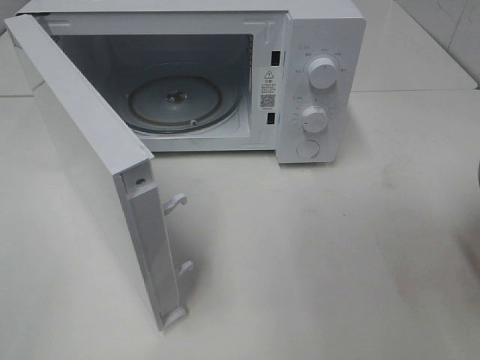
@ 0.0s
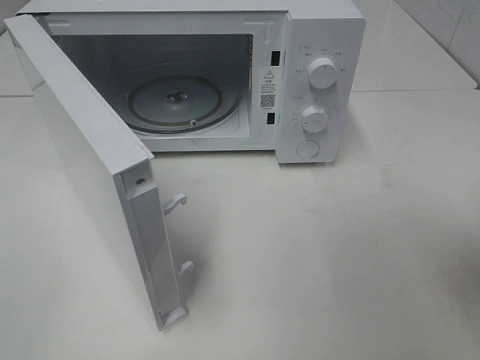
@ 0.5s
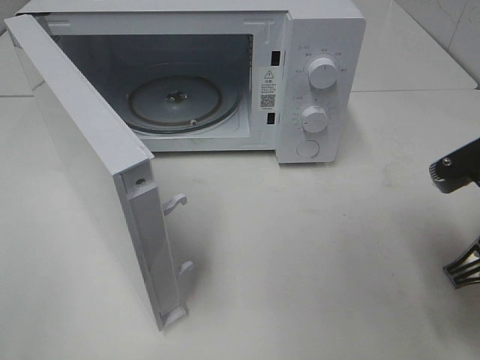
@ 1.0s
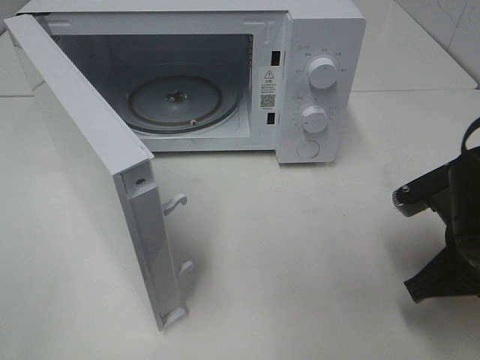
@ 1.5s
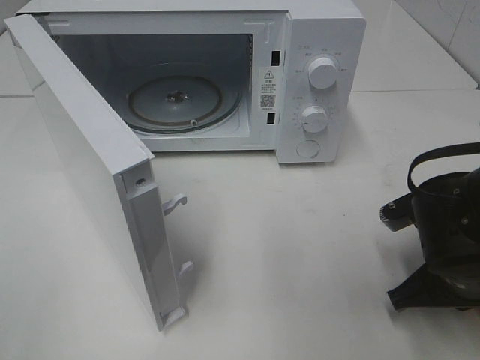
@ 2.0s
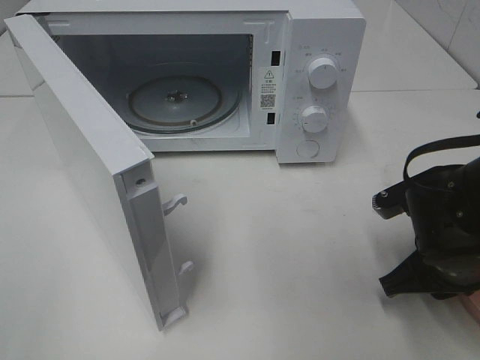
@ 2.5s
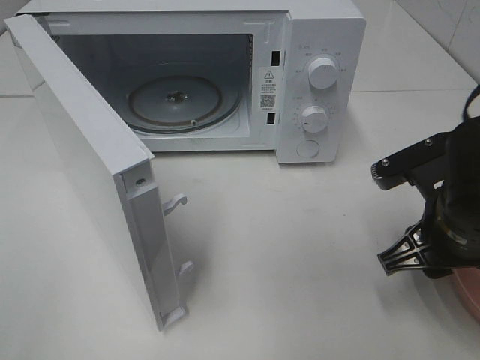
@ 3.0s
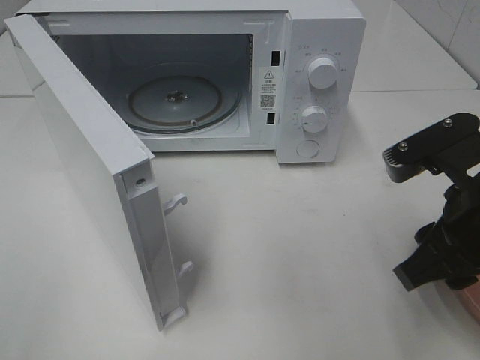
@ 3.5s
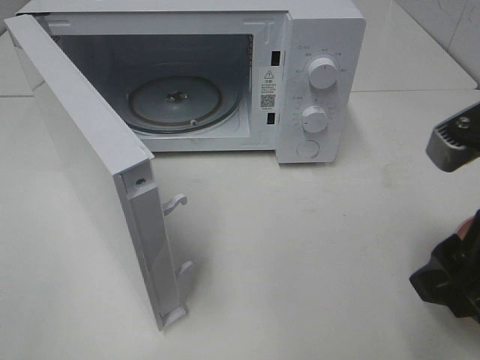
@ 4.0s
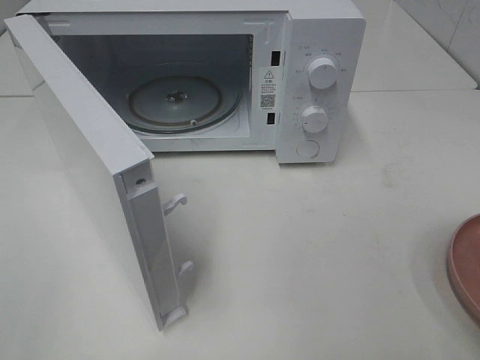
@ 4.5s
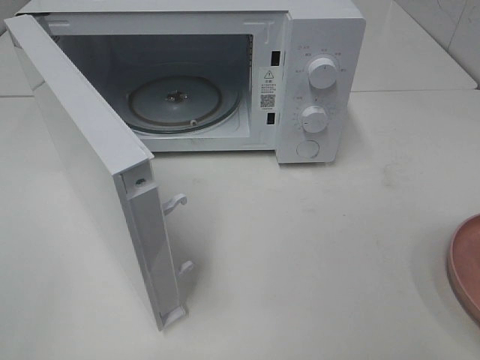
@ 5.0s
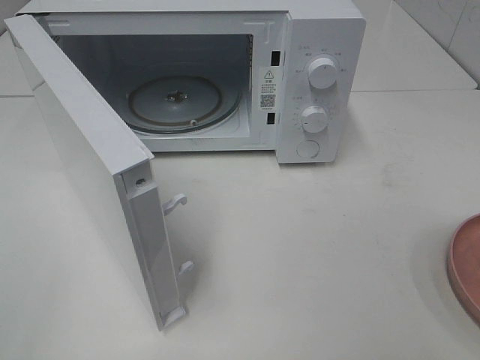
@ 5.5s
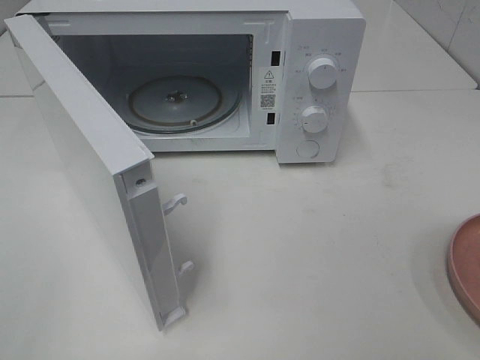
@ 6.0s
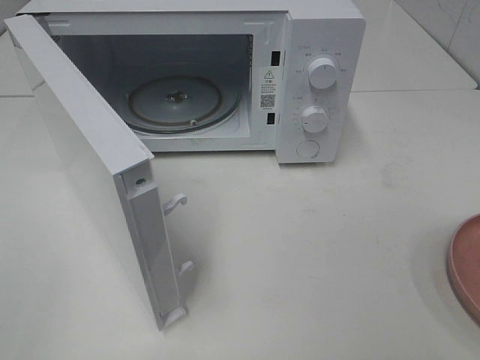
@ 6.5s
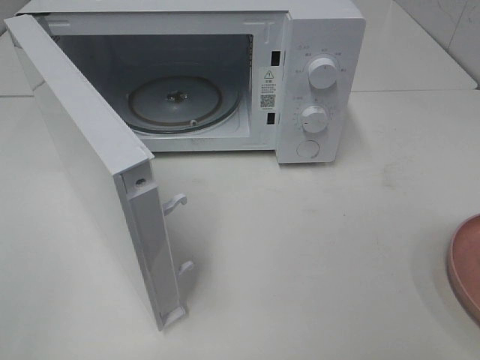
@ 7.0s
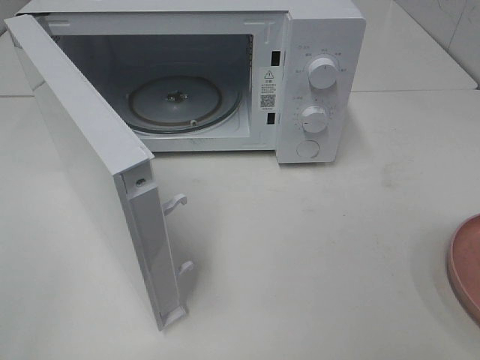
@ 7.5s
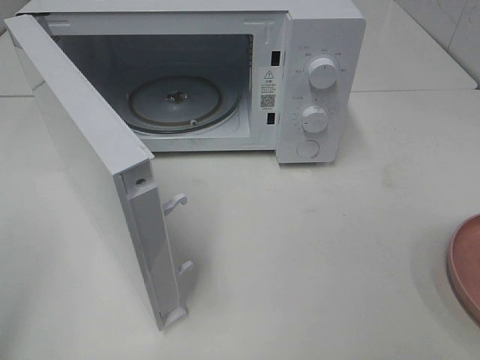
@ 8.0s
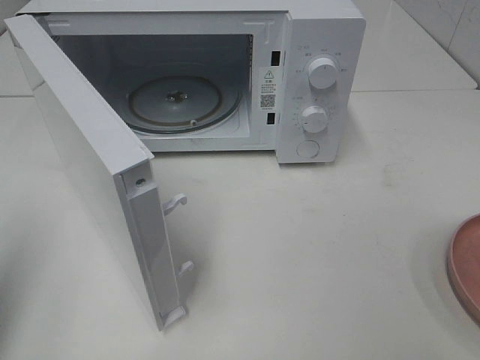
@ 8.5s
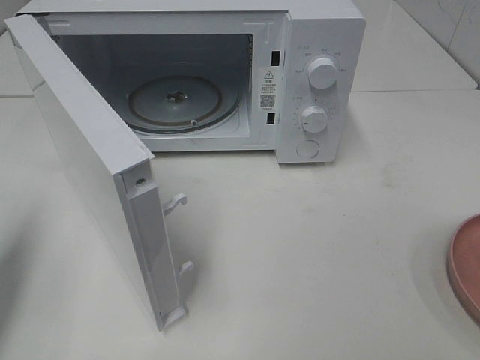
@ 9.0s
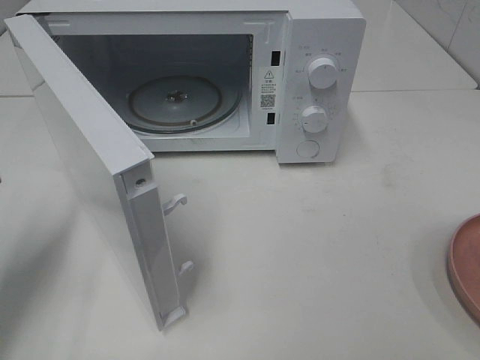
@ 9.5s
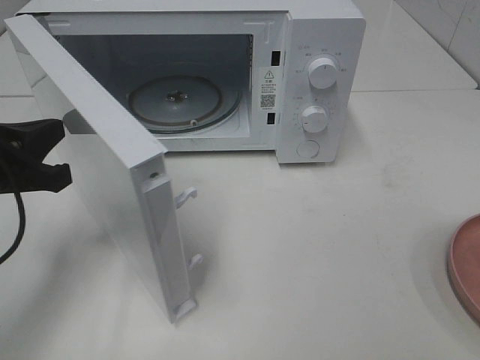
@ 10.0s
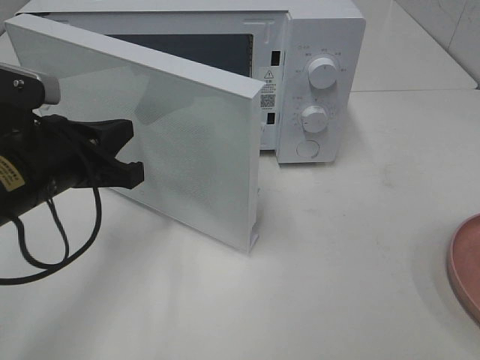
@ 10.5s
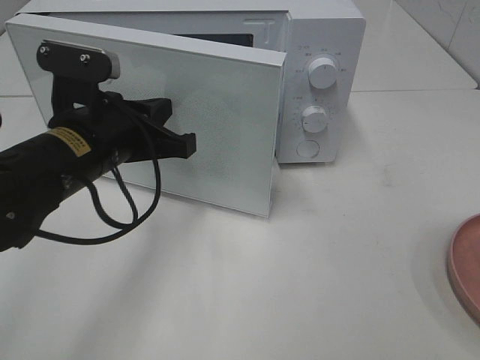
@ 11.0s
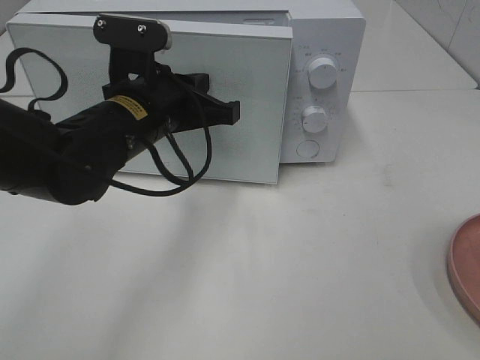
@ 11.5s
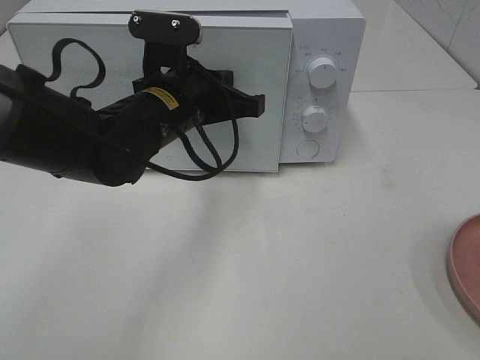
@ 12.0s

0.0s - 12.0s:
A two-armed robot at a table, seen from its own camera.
Task of the whole recording: Heat the burger.
Step, 0.0s - 2.5s: Right hand: place the plate on the table.
0.0s - 2.0s: The right gripper goes some 15 cm downward, forward and to the left.
2.0s - 4.0s: The right gripper moves upward and backward, roughly 15 cm, and opens.
4.0s - 6.0s: The right gripper moves backward and to the right, some 15 cm.
8.0s - 10.0s: The left gripper is displaced forward, downward and to the right by approximately 20 cm, and closes up.
10.0s - 12.0s: The left gripper travels to the right and forward by some 20 cm.

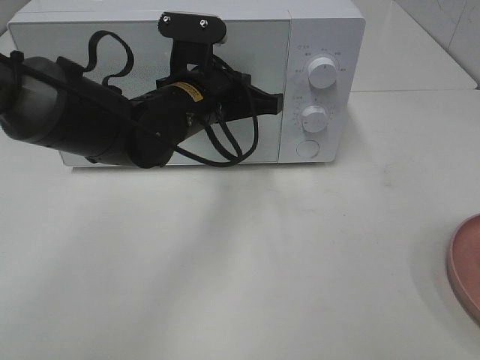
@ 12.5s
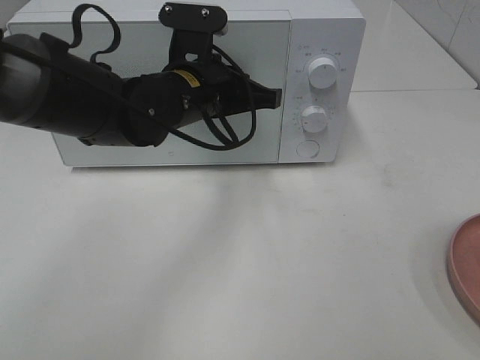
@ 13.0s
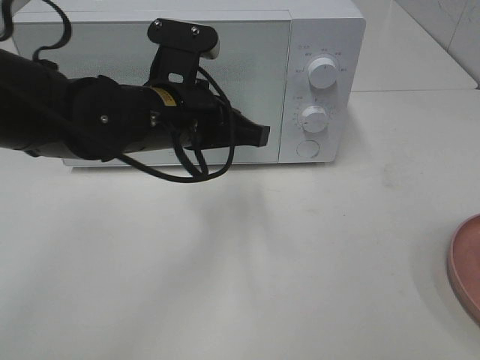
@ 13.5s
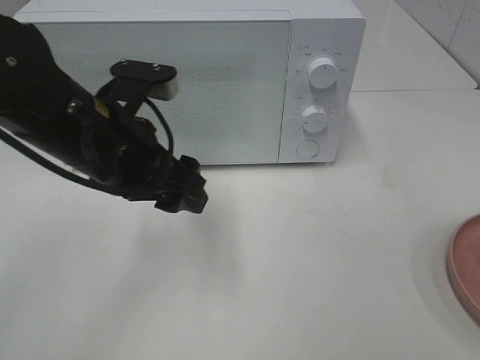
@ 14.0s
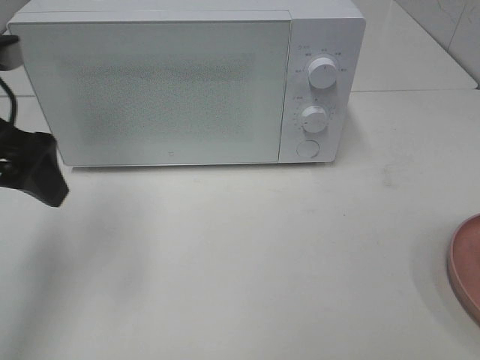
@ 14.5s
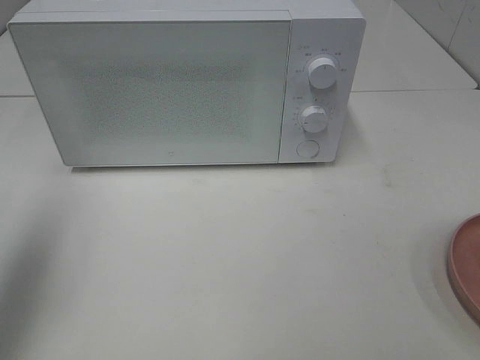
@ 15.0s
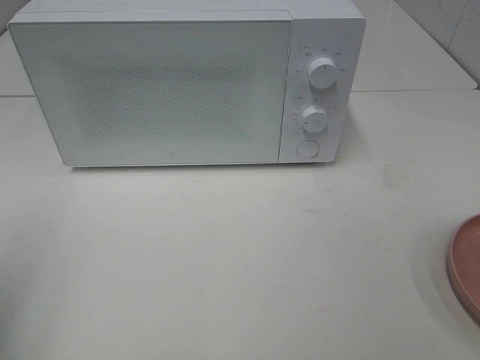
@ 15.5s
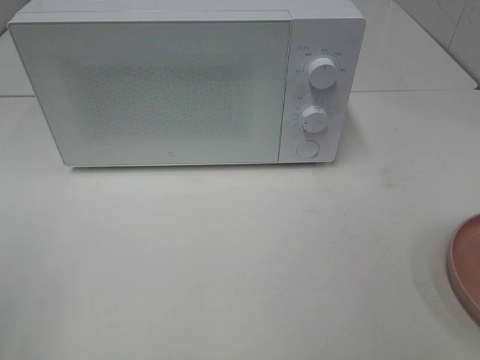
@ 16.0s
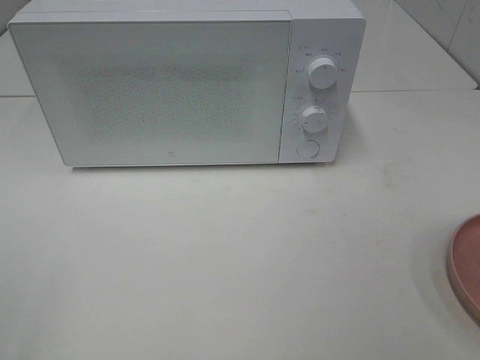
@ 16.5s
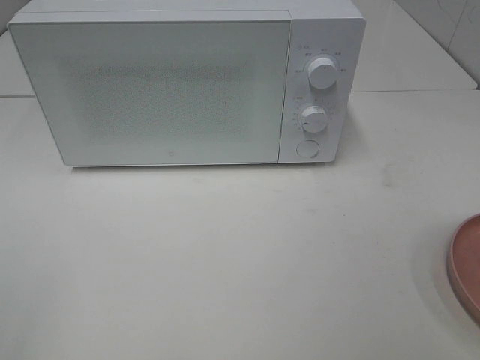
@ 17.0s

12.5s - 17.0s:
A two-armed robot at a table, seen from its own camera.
Task of the whole recording: Heat the burger.
12.5s - 14.5s: The left gripper shifts approximately 25 cm to the left, backward and upward, and opens.
14.5s - 17.0s: The left gripper goes some 25 cm backward.

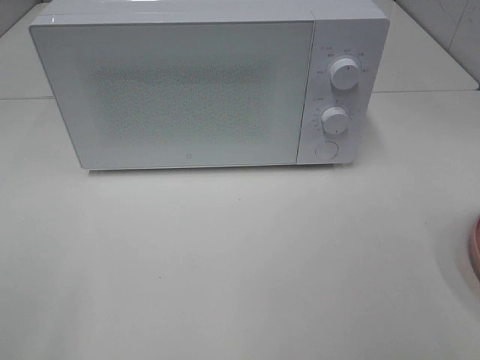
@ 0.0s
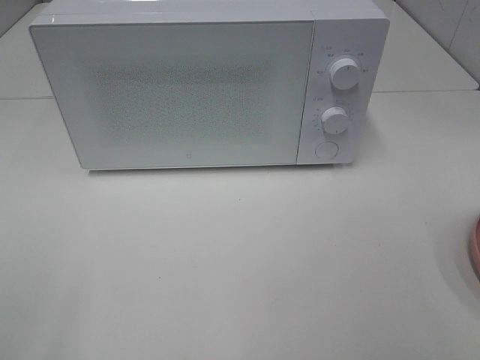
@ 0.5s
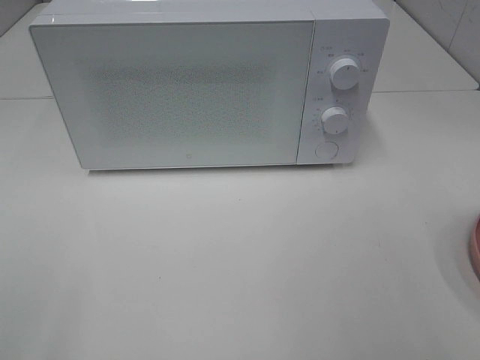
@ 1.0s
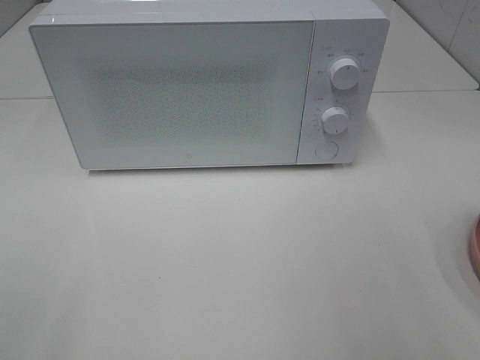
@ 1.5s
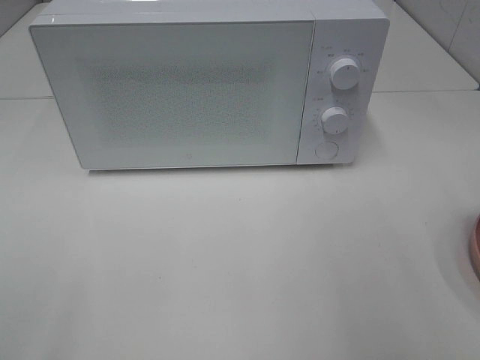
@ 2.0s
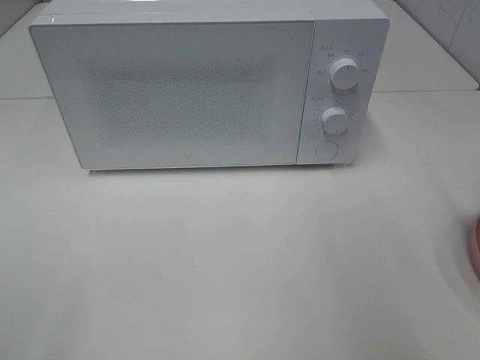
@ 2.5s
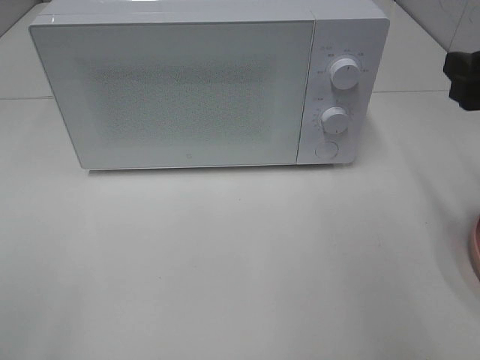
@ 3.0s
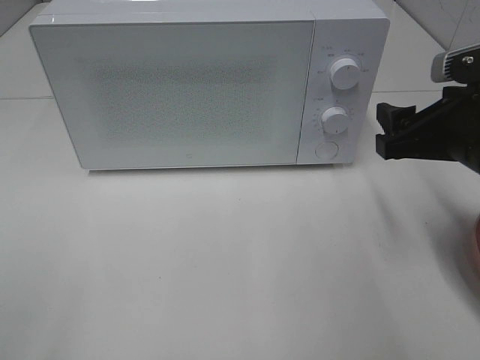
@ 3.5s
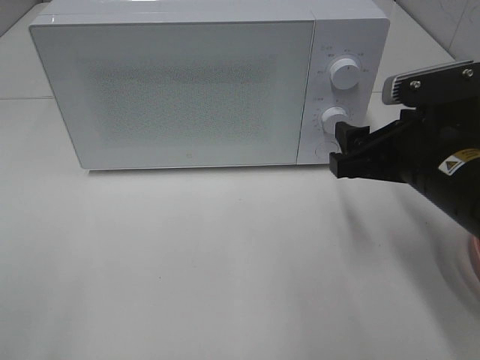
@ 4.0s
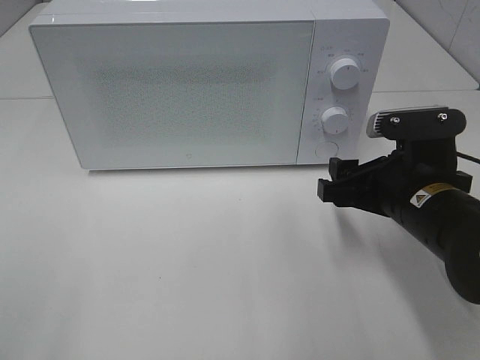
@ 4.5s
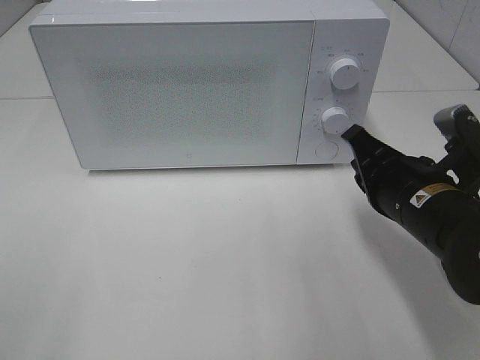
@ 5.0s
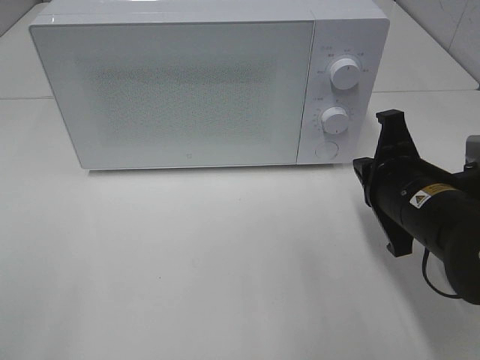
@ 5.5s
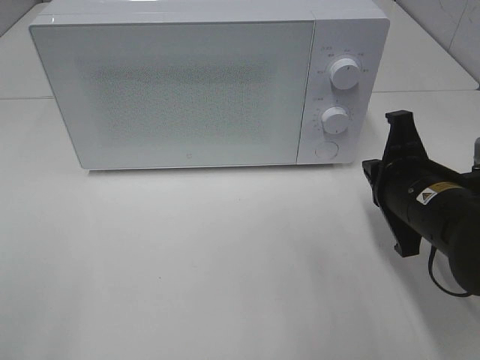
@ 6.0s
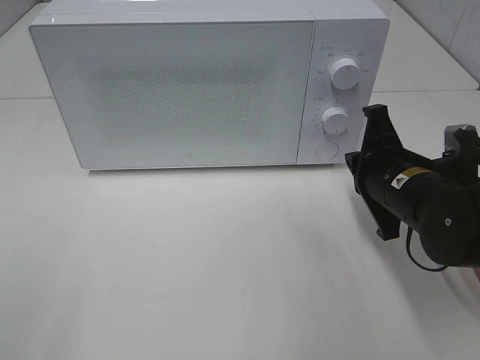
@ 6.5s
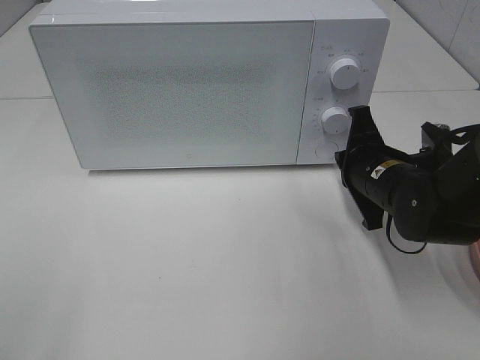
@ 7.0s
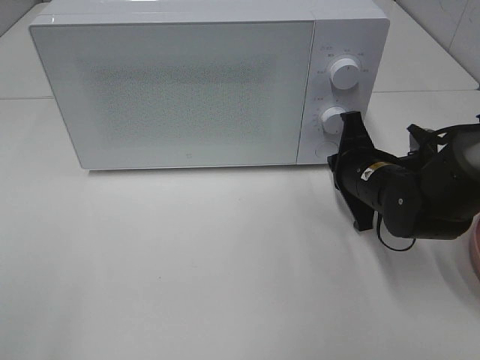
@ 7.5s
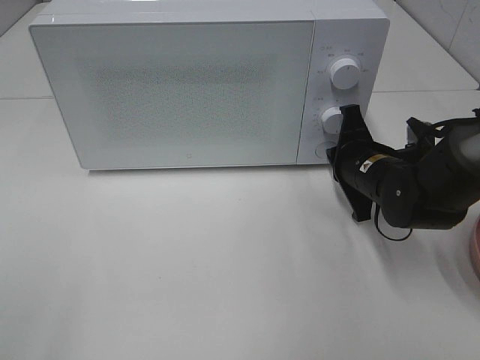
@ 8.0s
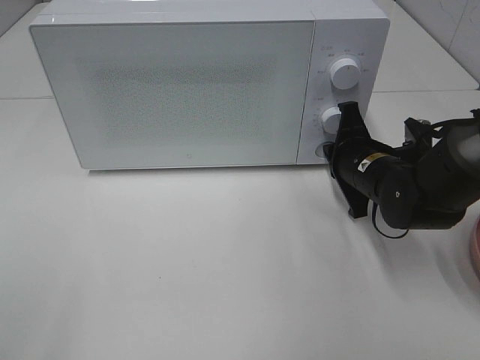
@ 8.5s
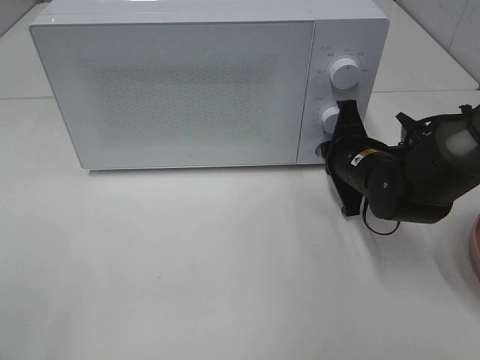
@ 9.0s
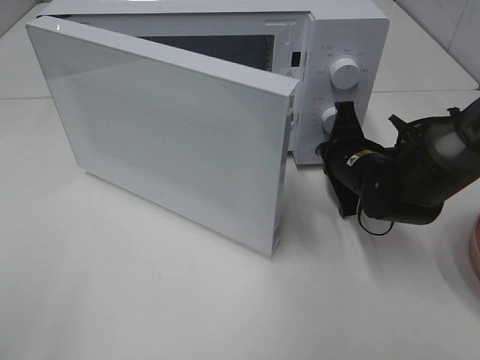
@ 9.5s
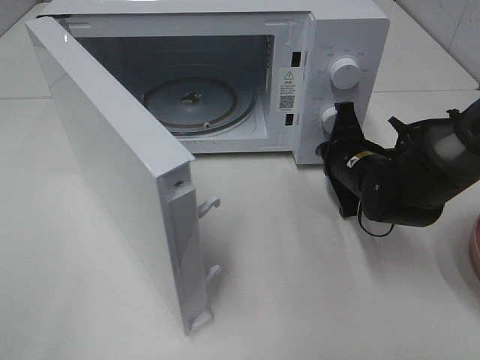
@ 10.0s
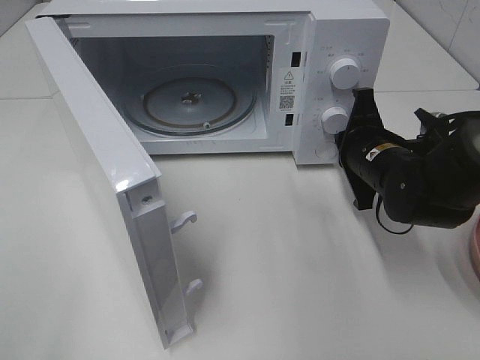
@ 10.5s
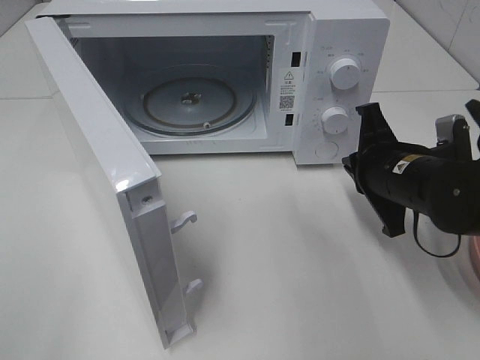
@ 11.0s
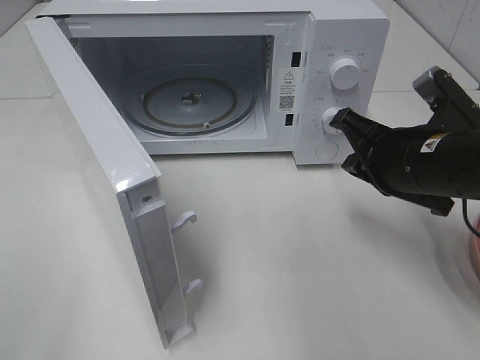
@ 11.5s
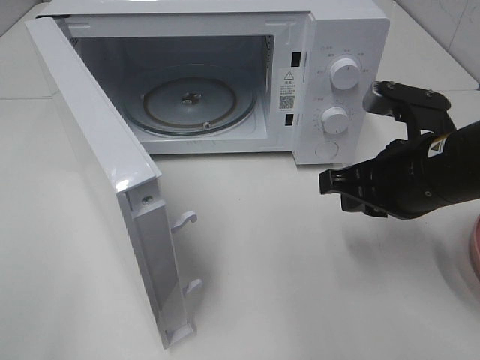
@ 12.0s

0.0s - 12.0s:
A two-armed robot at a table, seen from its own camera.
Task of the whole recording: Heat the burger.
Step, 0.0s - 10.0s: Right hand: press the switch.
2.0s - 4.0s: The right gripper moves downward, to the left and forward, roughly 20 cm.
4.0s - 6.0s: The right gripper closes.
6.0s - 8.0s: The right gripper goes roughly 10 cm forward and downward.
10.0s - 12.0s: The right gripper moves backward and upward, approximately 15 cm.
